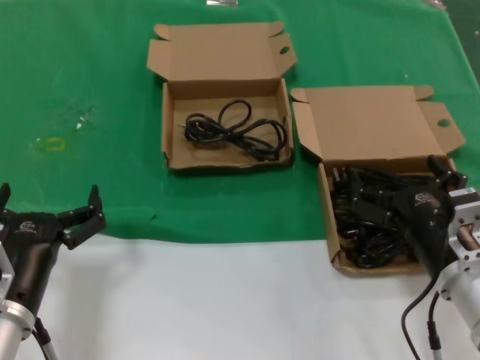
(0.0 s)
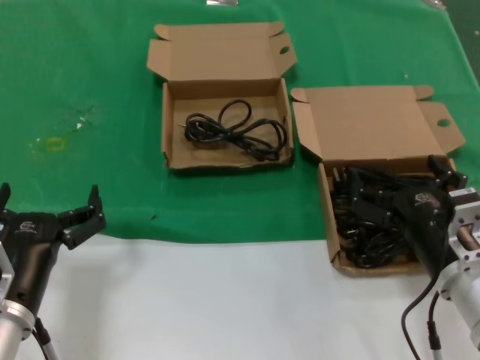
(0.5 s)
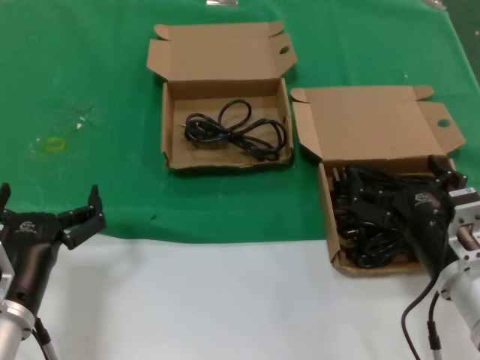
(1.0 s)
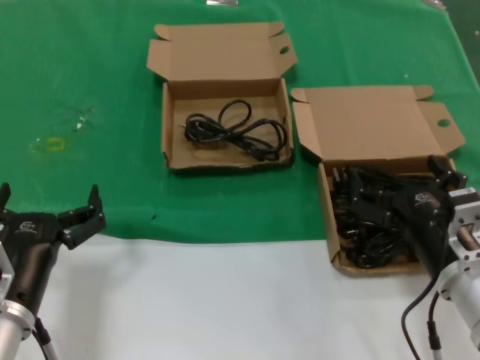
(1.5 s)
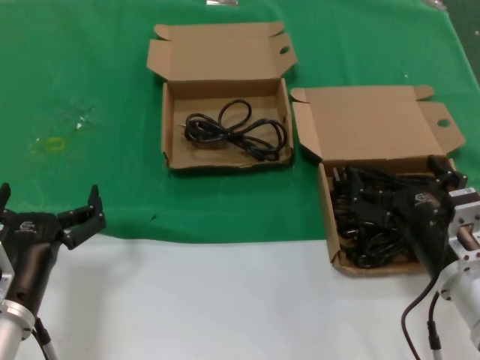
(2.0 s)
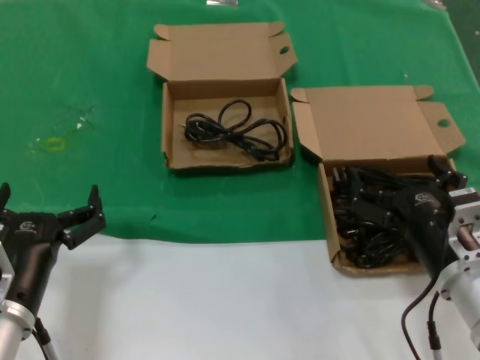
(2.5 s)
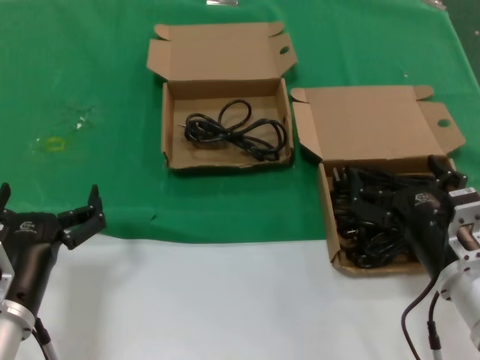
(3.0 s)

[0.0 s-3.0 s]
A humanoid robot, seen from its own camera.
Task of the whole recording: take the parts from the box containing them and put them into an empty box.
0.0 to 3.0 s: Neither hand changes place.

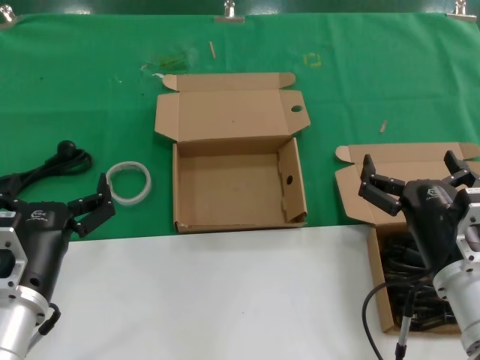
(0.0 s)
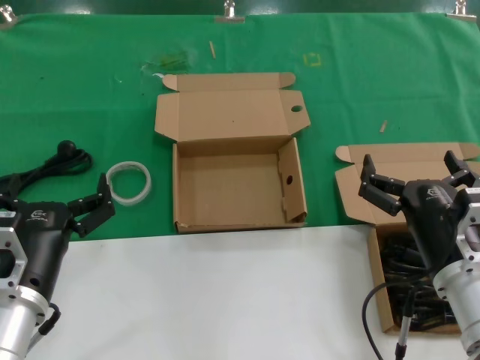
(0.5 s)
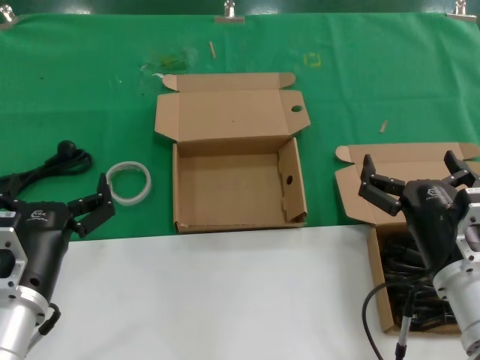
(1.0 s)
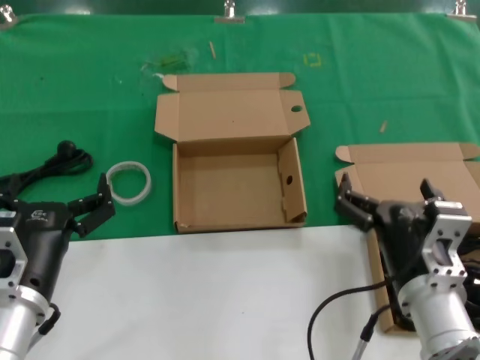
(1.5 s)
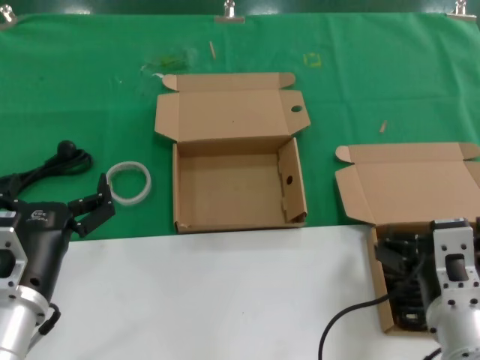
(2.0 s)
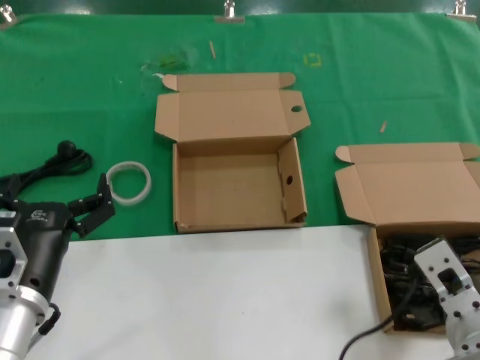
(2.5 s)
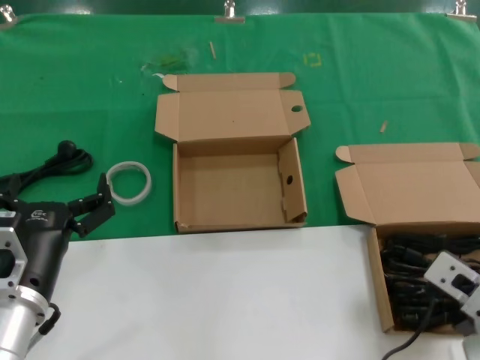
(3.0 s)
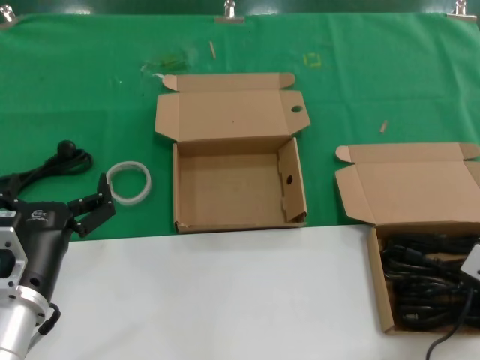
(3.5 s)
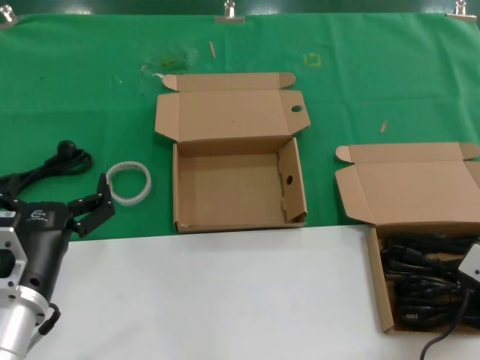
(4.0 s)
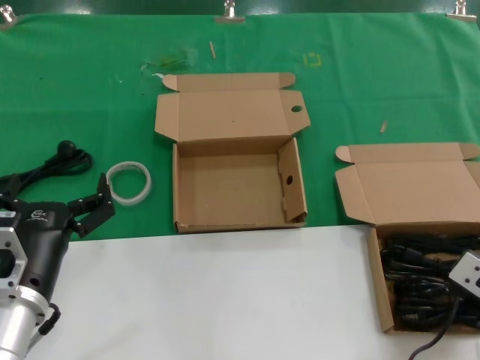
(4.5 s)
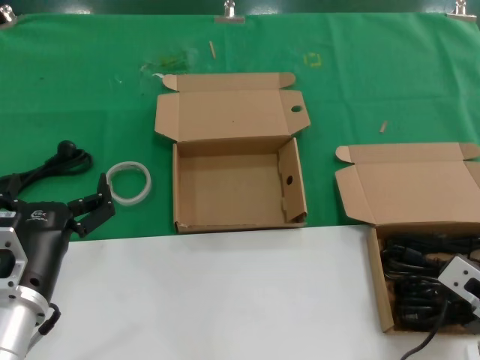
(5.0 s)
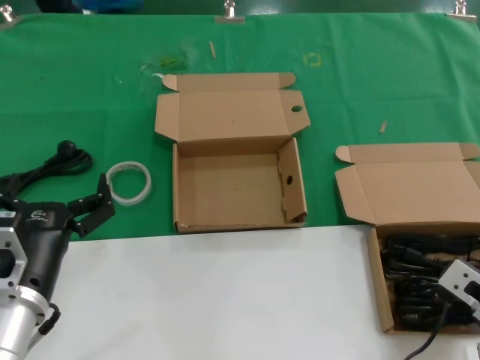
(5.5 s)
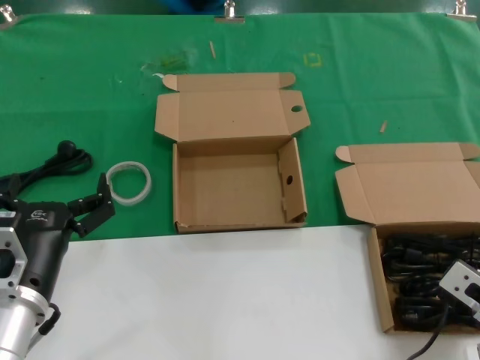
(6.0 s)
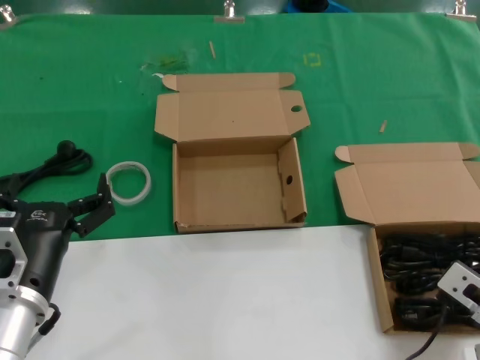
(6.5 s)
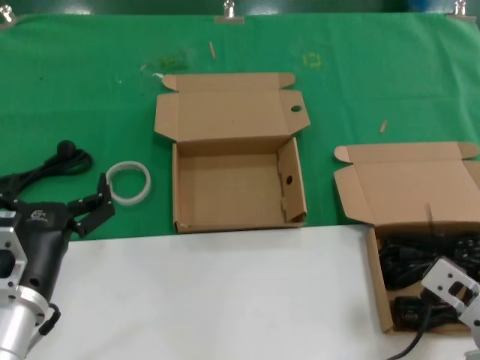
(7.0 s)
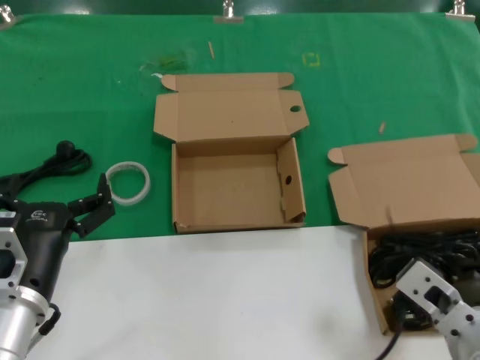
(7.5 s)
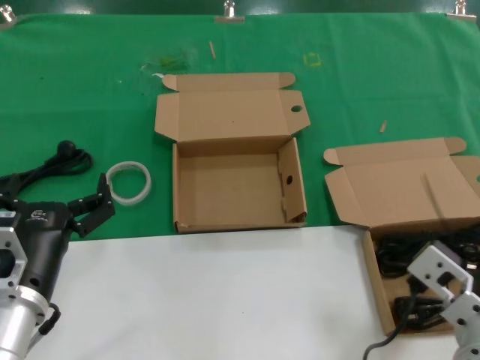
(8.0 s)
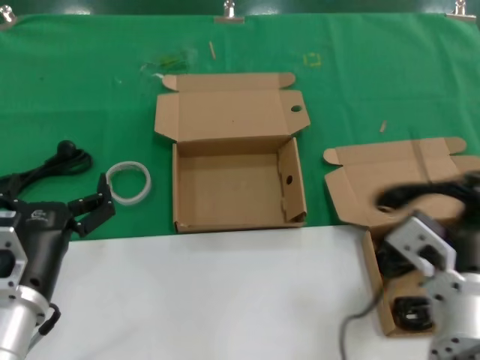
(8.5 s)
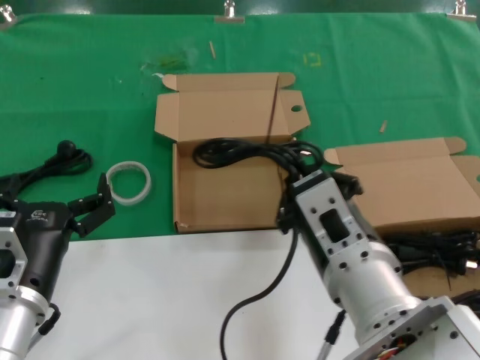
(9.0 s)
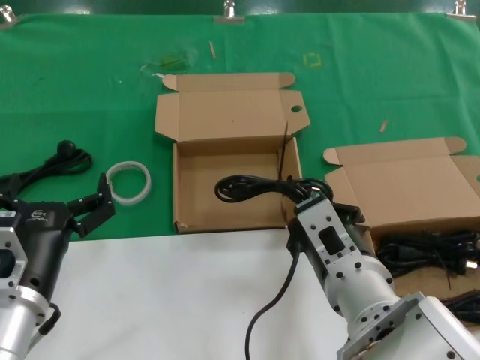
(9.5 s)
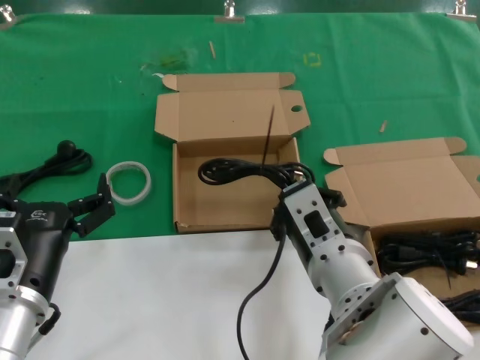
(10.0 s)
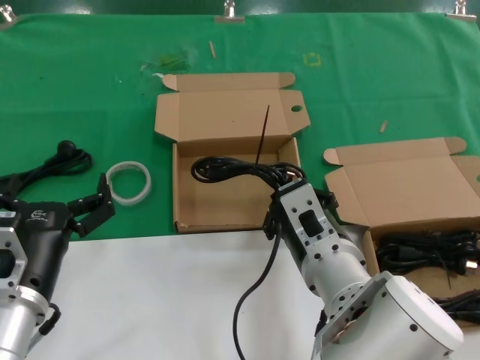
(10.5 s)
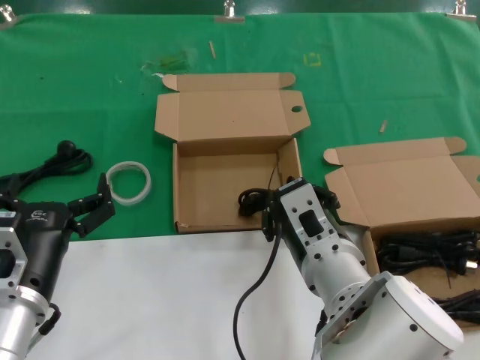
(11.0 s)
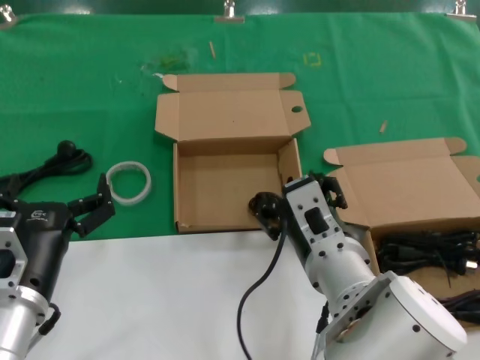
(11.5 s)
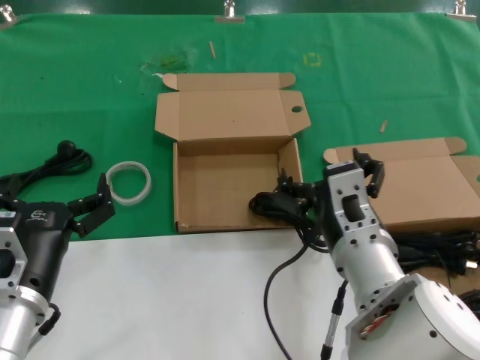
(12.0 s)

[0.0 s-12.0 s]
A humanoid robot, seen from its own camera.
Task of the whole recording: take the parts from the box containing them and put them into an empty box.
Step, 0.0 to 7.0 s: Grasp the data cable.
Step, 7.5 to 11.5 s: Place the data cable in the another box.
0.0 to 2.0 s: The right hand ends up some 5 cm from where it was.
2.0 to 4.0 s: The right hand travels to the right by about 10 cm.
4.0 to 6.0 s: The hands move only a little.
6.0 to 8.0 s: The right hand is displaced to the left and upward by about 10 cm.
8.0 to 10.0 s: The right hand heads to the left and forward, covering some 10 cm.
10.0 to 12.0 s: The hands move only a little.

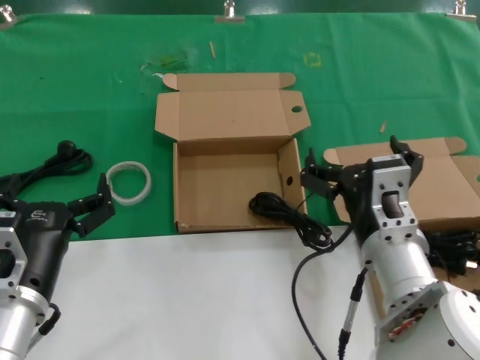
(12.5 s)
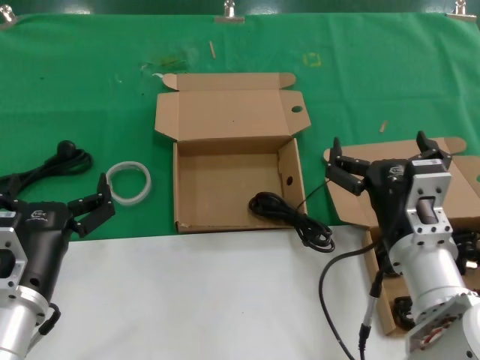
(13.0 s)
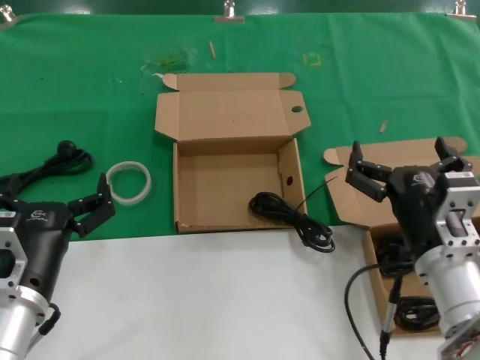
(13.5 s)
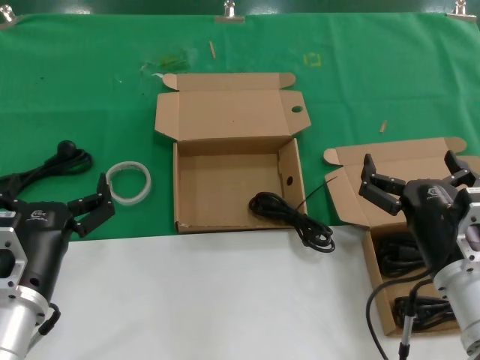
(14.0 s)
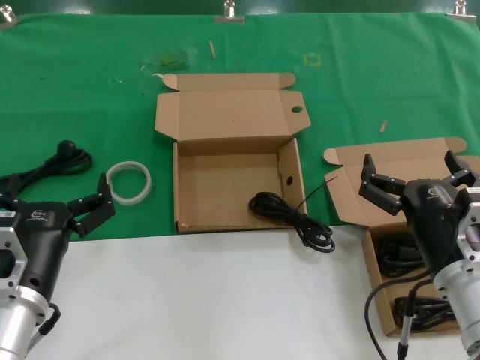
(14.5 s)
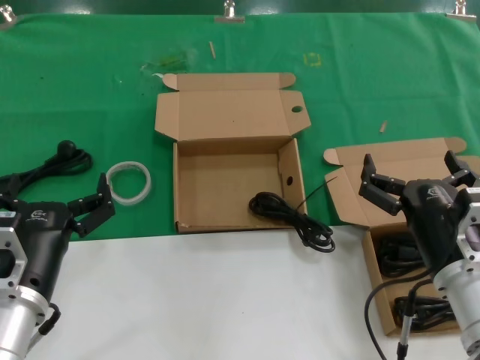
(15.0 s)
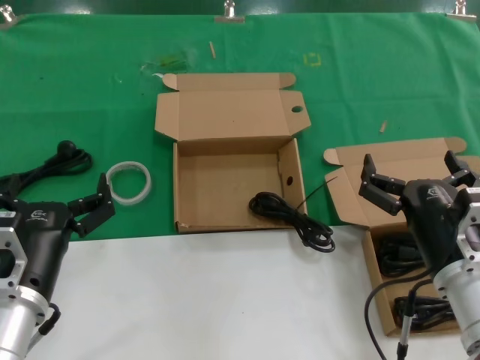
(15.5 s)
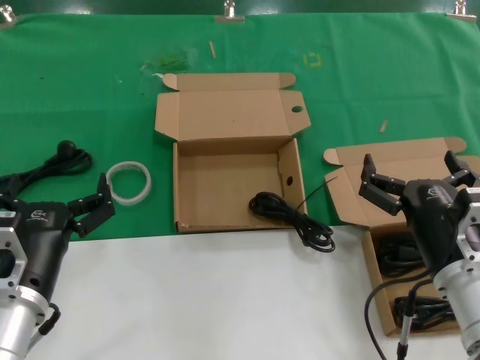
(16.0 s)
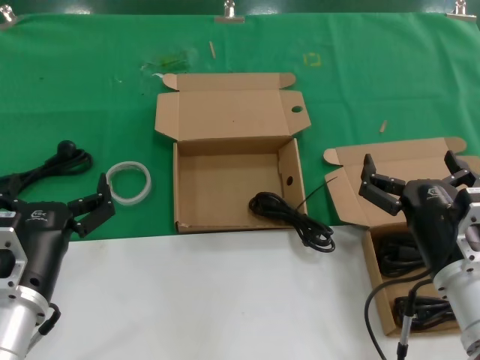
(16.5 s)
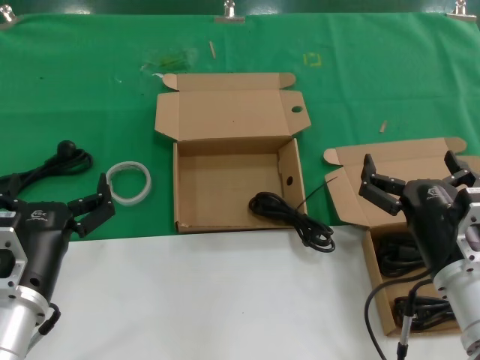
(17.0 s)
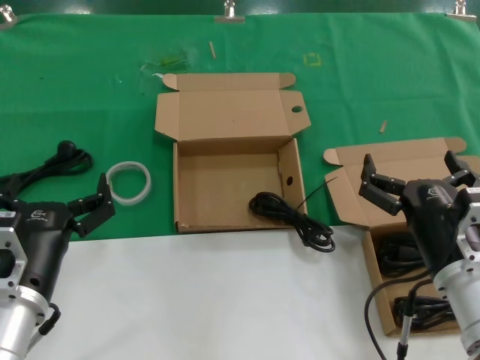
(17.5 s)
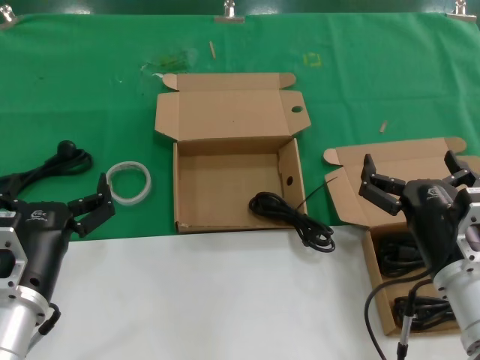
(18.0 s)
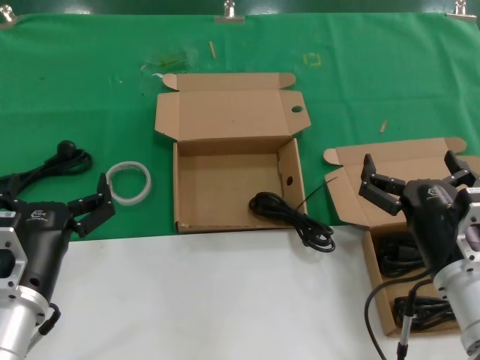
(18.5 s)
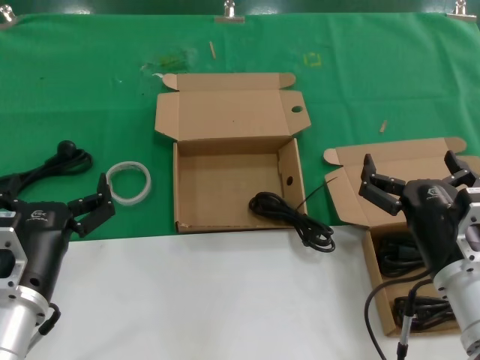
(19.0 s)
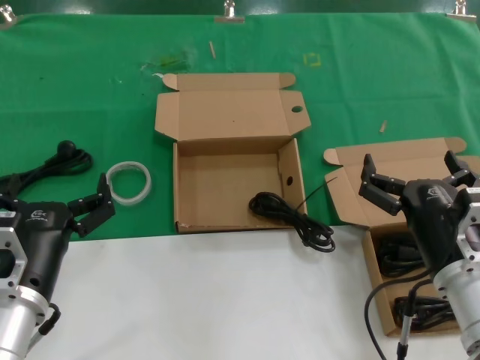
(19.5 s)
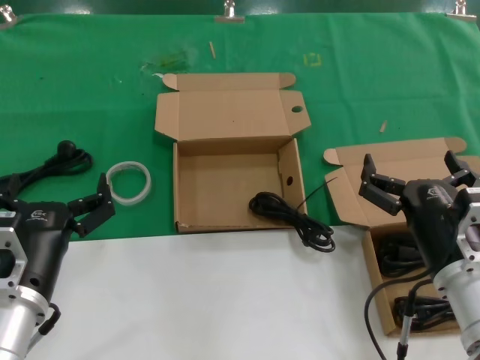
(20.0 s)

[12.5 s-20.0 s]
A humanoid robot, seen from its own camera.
Task of the whole recording: take the parts from the box containing them and put them into an empty box.
12.5 to 14.5 s: The right hand moves to the right, approximately 10 cm.
14.5 to 20.0 s: Neither hand changes place.

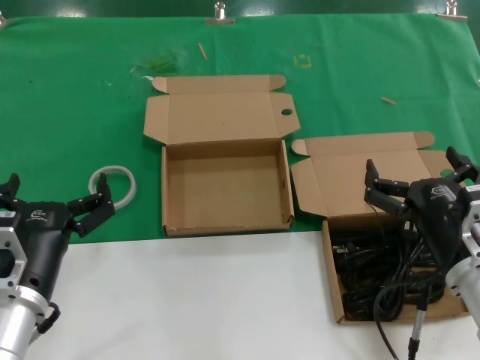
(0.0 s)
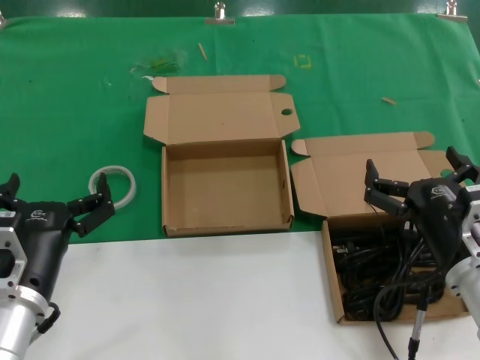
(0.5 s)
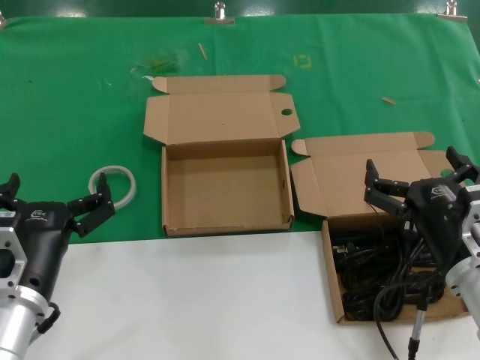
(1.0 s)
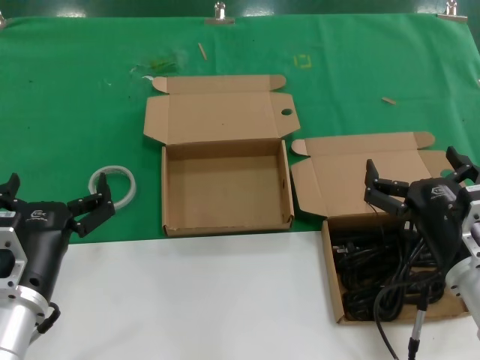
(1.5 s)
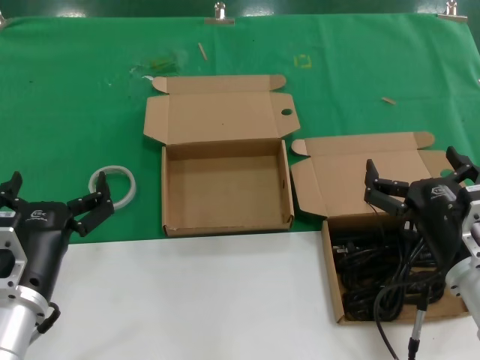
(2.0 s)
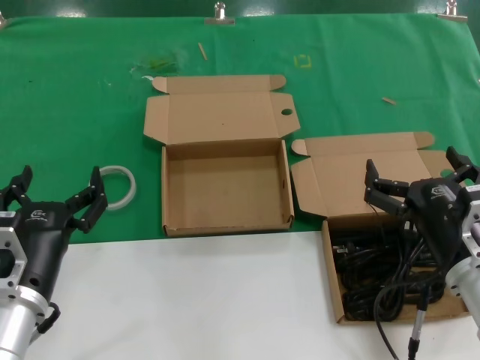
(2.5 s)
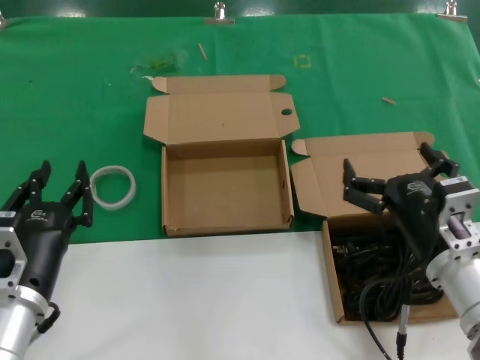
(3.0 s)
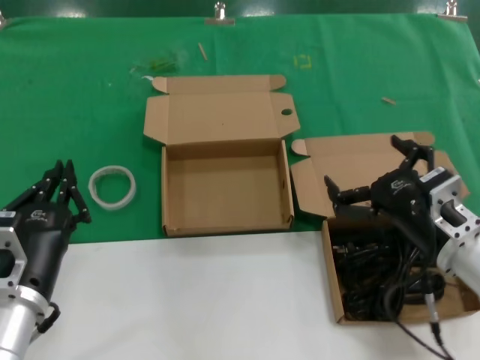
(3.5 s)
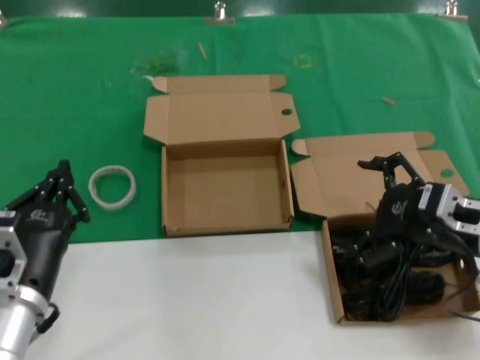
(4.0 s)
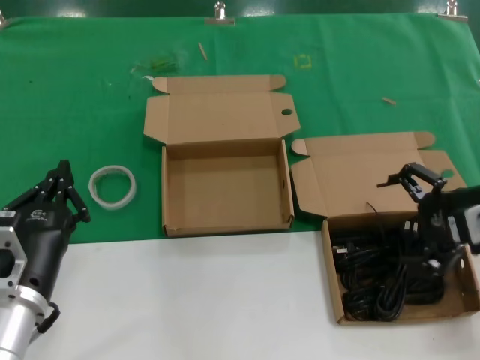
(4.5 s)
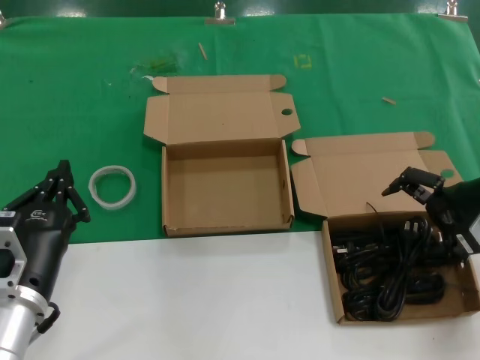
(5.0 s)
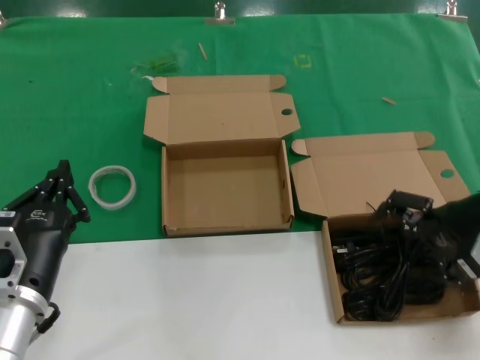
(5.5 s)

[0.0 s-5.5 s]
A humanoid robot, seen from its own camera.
Task of the whole recording: take the parts from the box containing them and put them into an empty box.
0.0 to 2.0 s: Both hands stay about where they are.
3.5 to 5.5 s: The right hand goes approximately 15 cm to the right, upward and forward.
